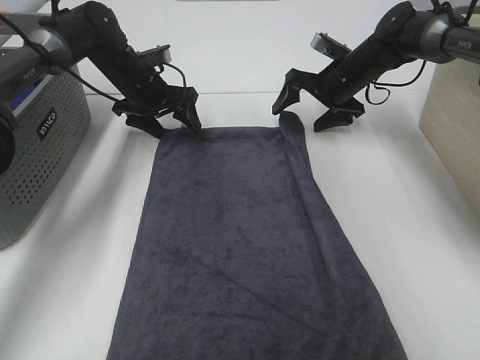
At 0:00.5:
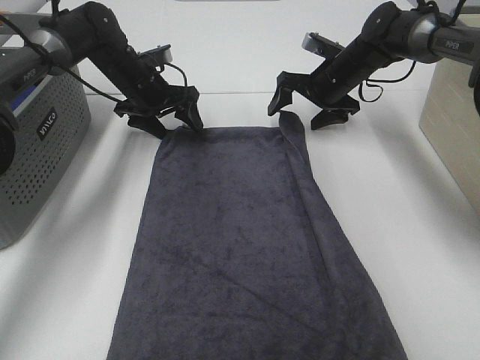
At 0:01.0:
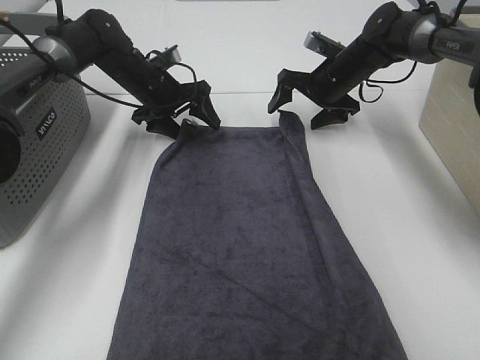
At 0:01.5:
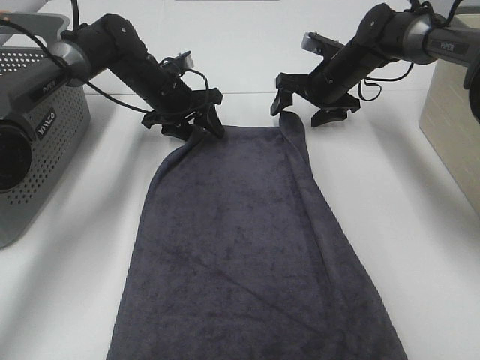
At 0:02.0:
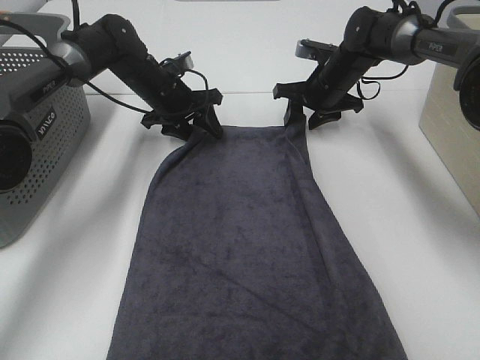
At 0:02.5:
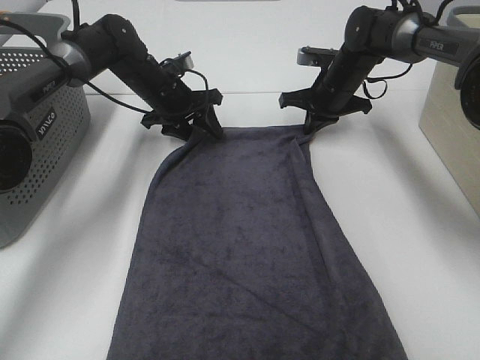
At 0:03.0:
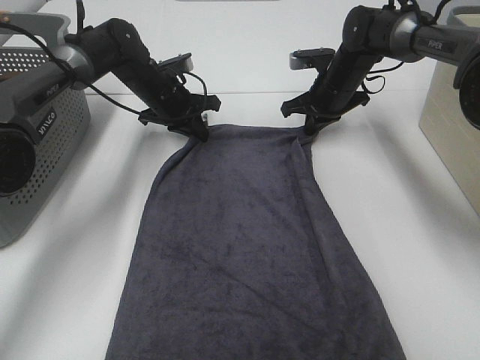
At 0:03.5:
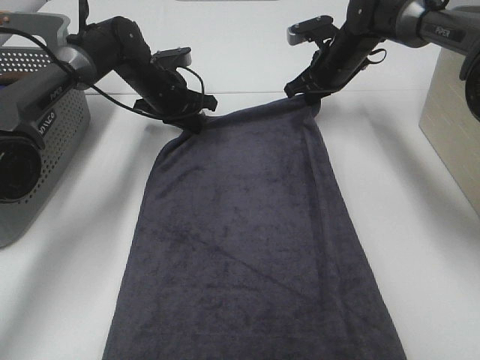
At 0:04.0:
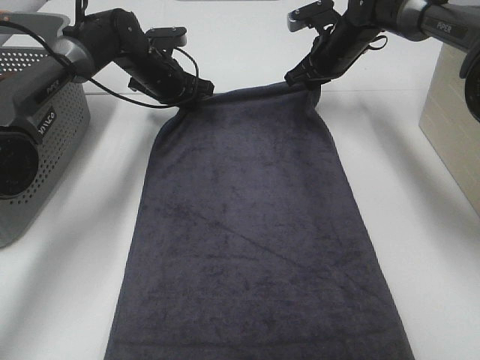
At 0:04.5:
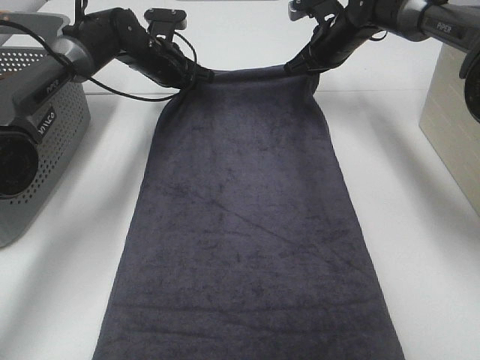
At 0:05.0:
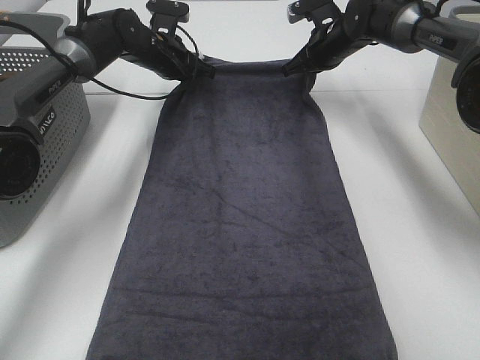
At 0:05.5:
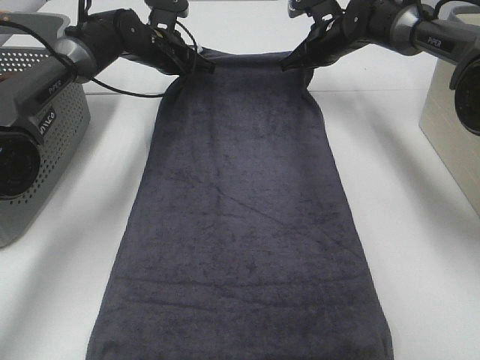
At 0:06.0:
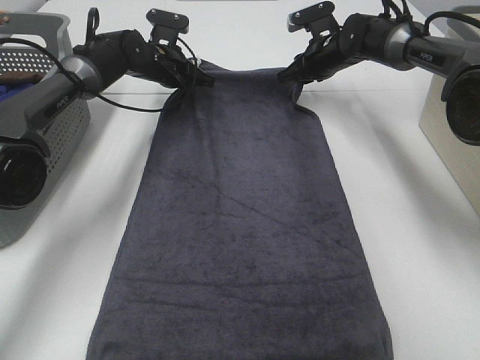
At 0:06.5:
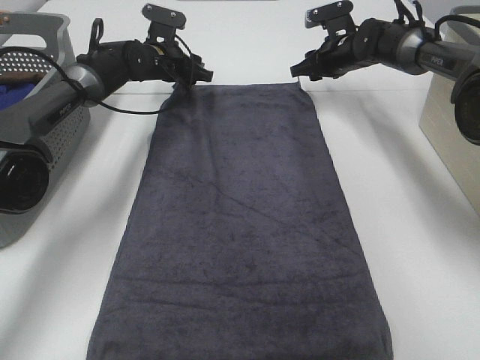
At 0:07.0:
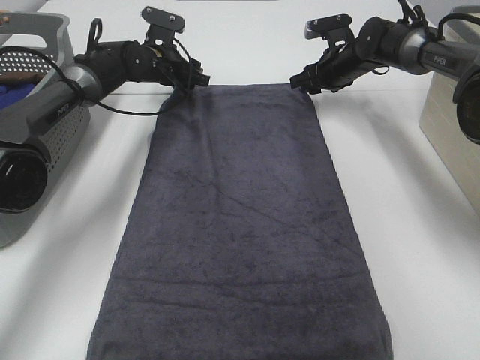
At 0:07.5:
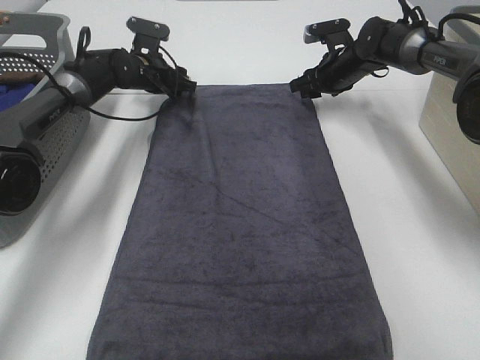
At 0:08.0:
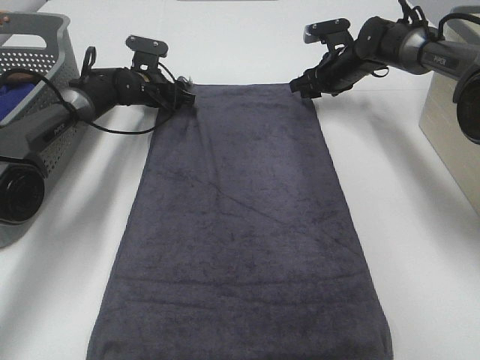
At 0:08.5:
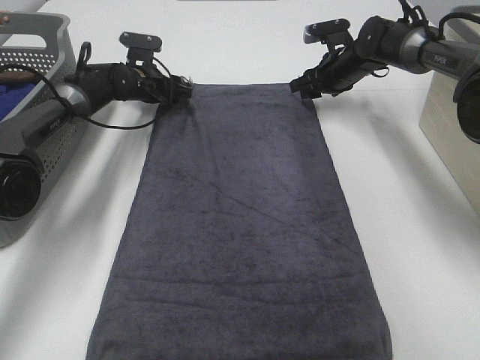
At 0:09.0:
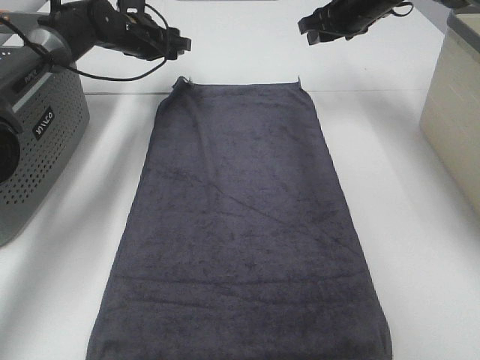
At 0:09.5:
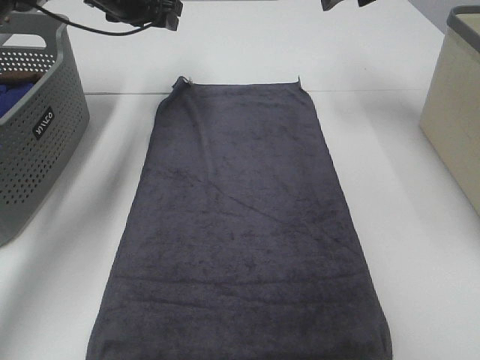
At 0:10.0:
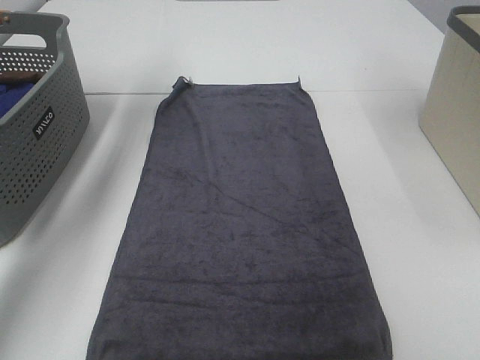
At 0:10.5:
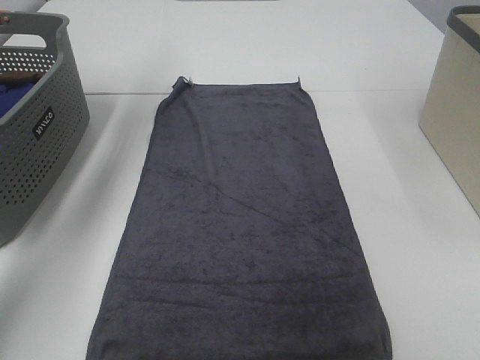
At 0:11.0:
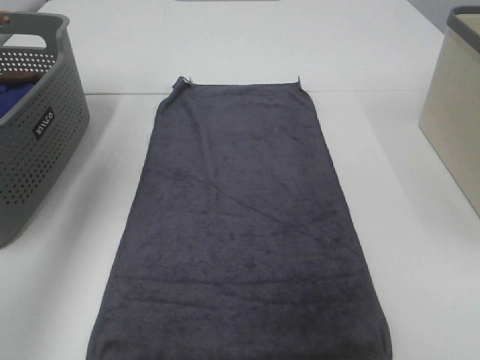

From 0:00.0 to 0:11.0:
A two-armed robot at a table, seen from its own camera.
Task of the whole recording: Remove the towel and place it.
From 0:00.0 to 0:02.0: The right gripper closes up.
From 0:02.0 to 0:03.5: The right gripper closes its fingers; the left gripper closes up.
From 0:03.5 to 0:05.5: The left gripper moves about 5 cm.
From 0:05.5 to 0:07.5: The right gripper moves about 5 cm, and opens up; the left gripper heads downward, covering roughly 5 cm, and opens its fingers.
From 0:07.5 to 0:09.0: Both grippers move upward, some 10 cm.
From 0:09.0 to 0:11.0: The two grippers go some 35 cm backward and upward.

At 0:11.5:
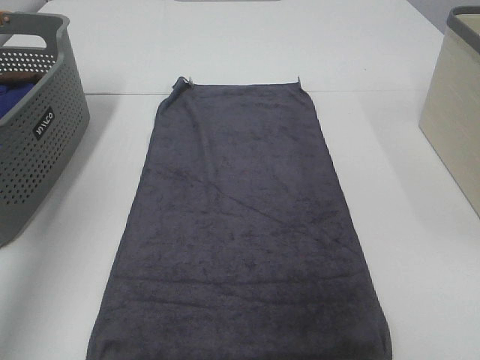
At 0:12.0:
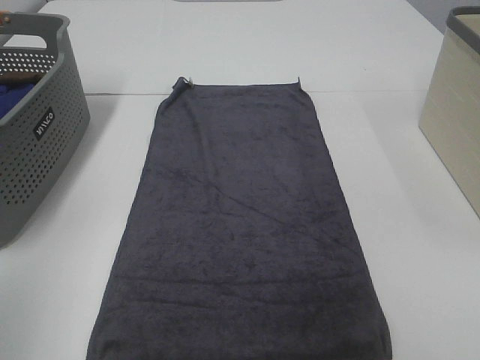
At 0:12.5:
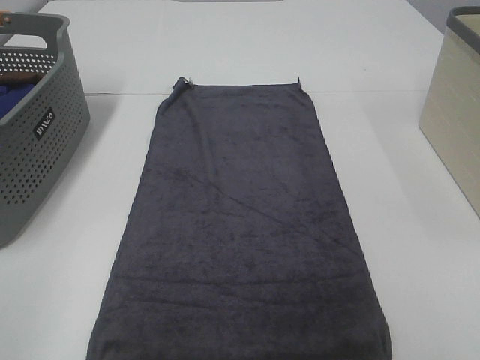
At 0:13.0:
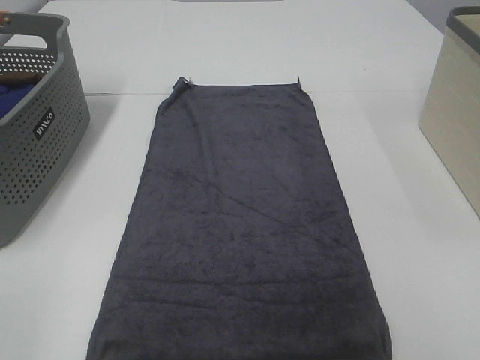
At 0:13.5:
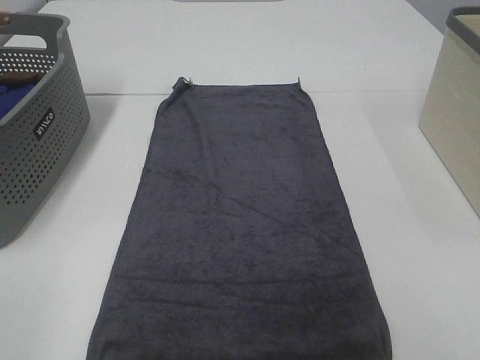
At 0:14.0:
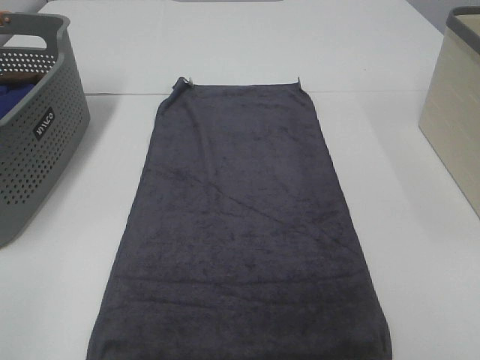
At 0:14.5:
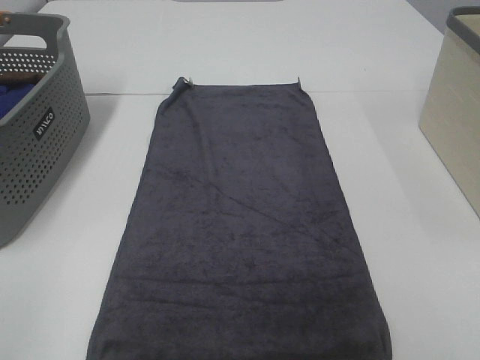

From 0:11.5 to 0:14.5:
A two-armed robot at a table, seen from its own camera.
Task of the whole recording: Remove the towel and place it.
From 0:11.5 to 0:13.0: The left gripper moves backward and downward, about 25 cm.

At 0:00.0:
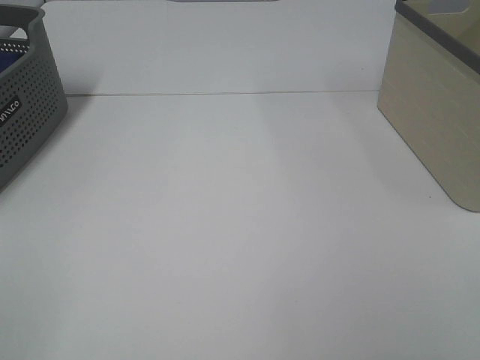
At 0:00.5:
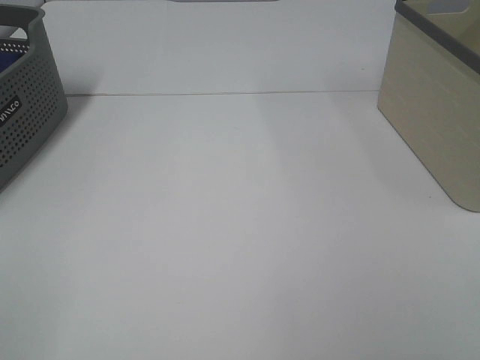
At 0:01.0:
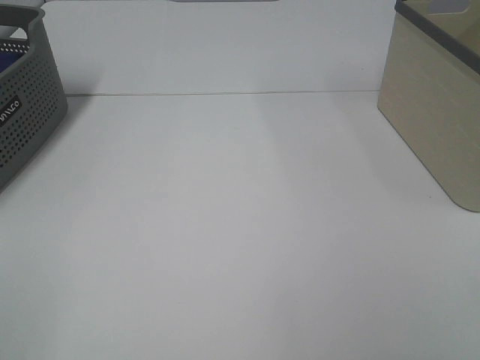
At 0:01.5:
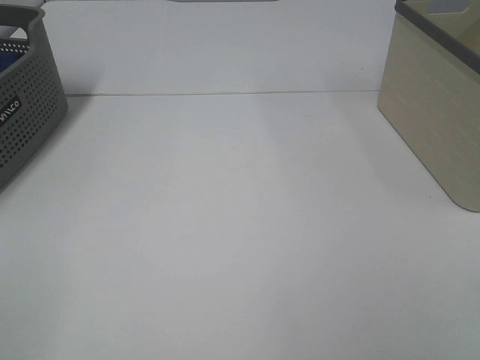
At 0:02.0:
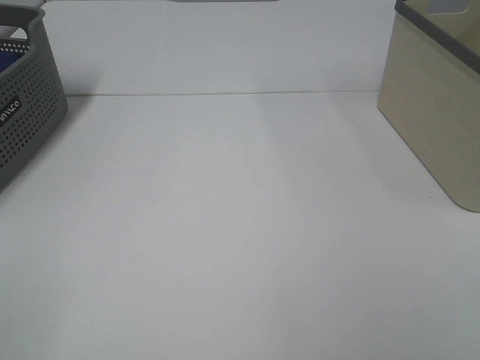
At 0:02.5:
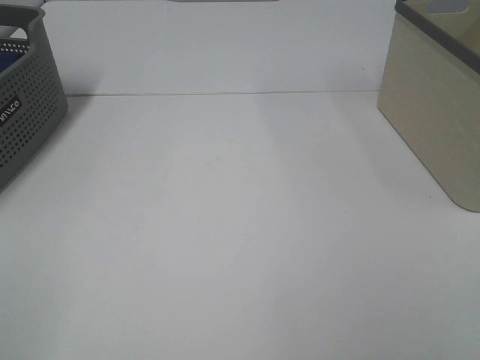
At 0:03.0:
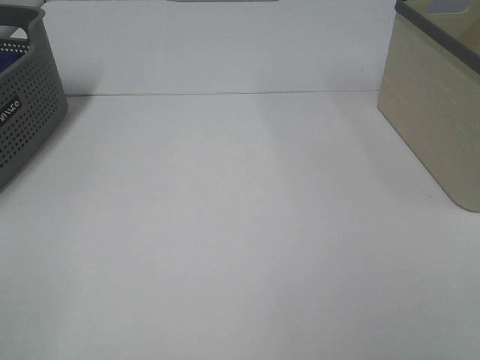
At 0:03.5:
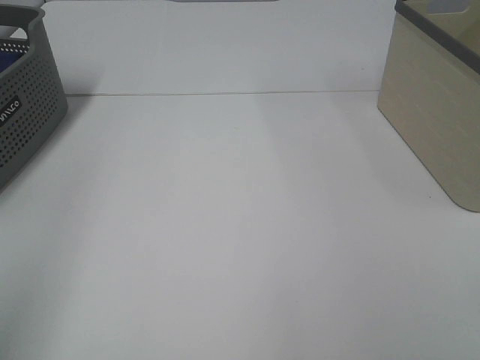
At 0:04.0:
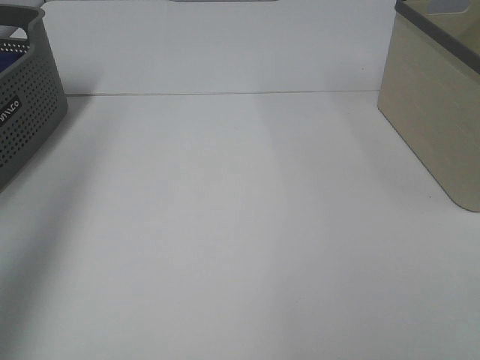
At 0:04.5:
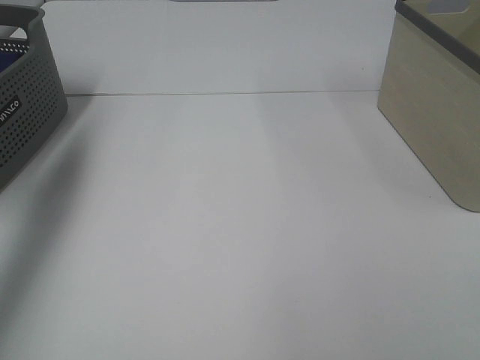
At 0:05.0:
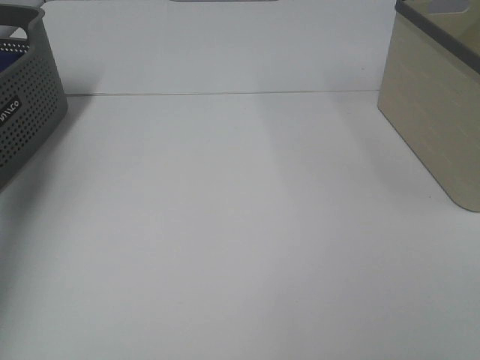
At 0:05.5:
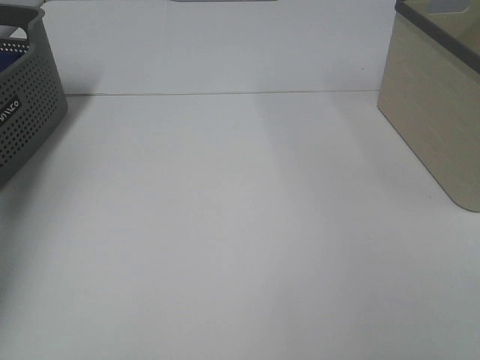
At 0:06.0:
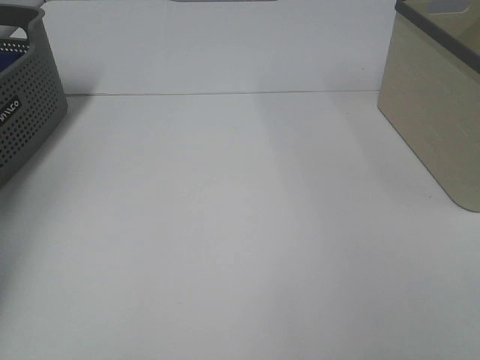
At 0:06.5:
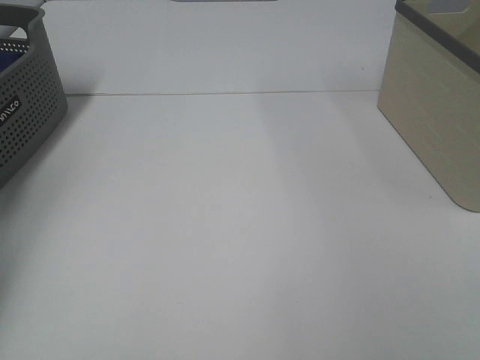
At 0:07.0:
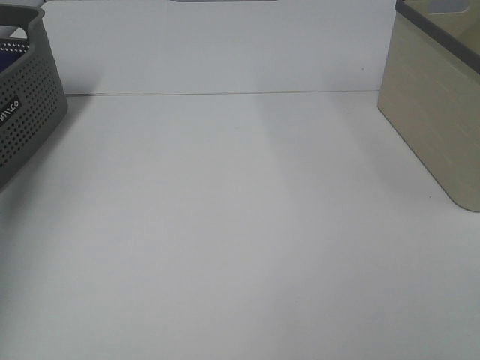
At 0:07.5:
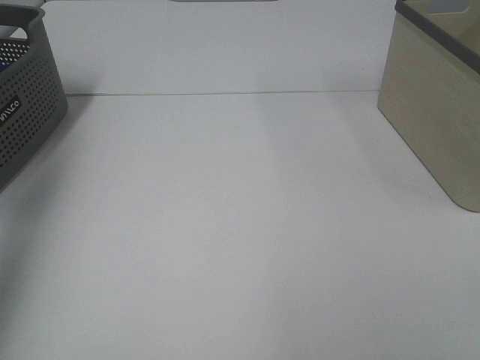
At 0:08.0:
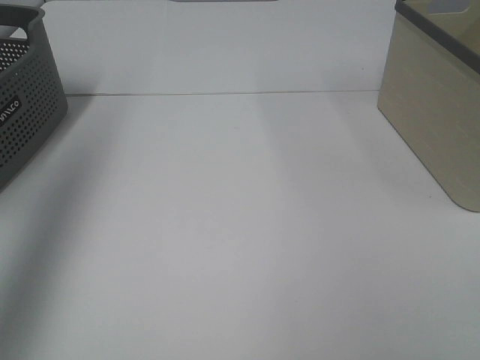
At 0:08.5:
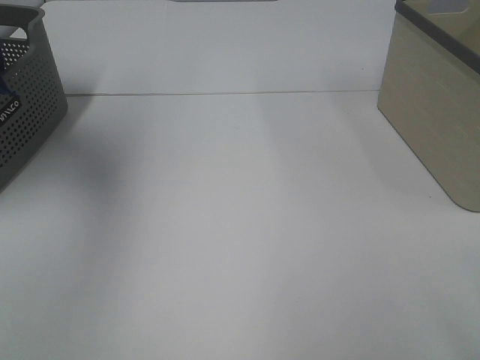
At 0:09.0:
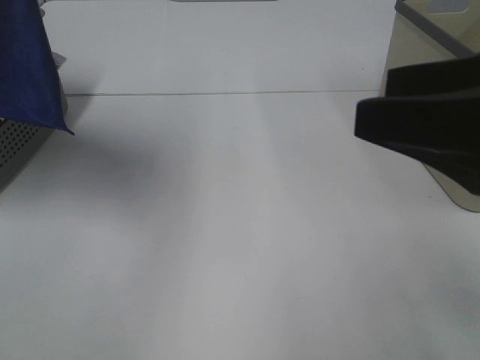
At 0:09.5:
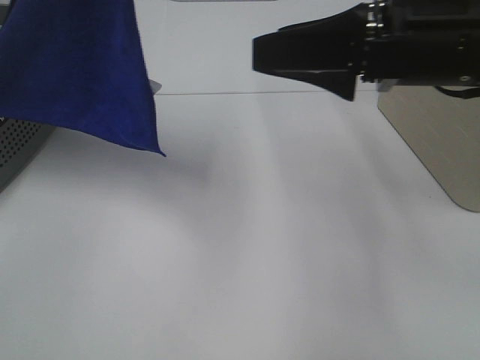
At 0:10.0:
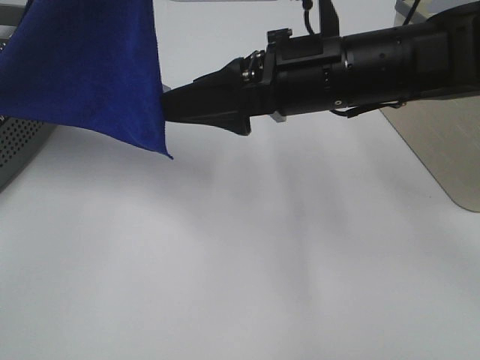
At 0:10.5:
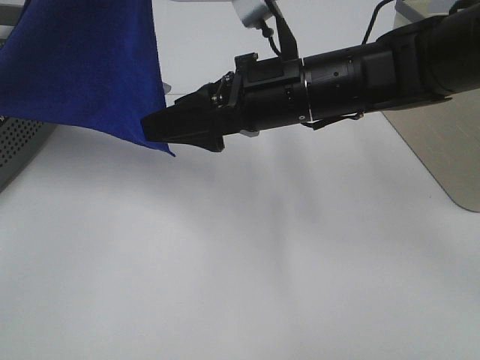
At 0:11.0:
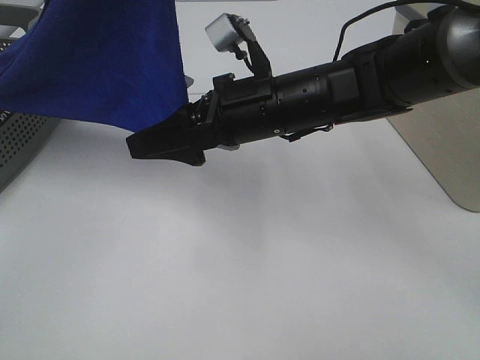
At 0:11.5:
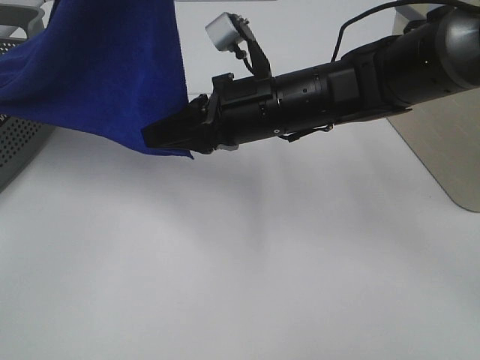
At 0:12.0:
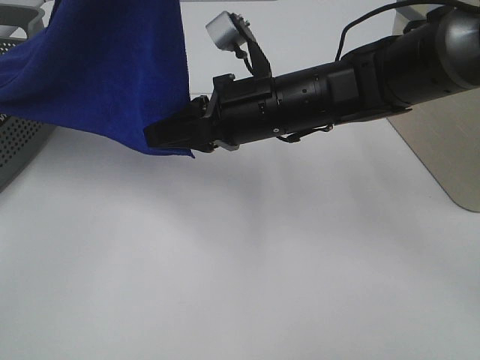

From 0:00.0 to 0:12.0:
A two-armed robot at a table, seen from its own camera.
Task of the whole recording: Remove the towel and place it.
Step, from 0:08.0 to 0:11.5: Right hand: grab a corner of the blue towel and straighten it.
From 0:00.0 to 0:02.0: Both grippers stay about where they are.
From 0:02.0 to 0:04.0: The left gripper heads forward and upward, covering roughly 25 cm.
From 0:04.0 to 0:06.0: The left gripper is displaced forward, downward and to the left by approximately 30 cm, and closes.
From 0:06.0 to 0:08.0: The left gripper shifts about 35 cm upward and backward, and closes its fingers.
From 0:08.0 to 0:10.0: The left gripper moves to the right, roughly 25 cm, while the right gripper travels forward and to the left by about 35 cm.
From 0:10.0 to 0:12.0: The right gripper changes place by some 5 cm, and closes up.
